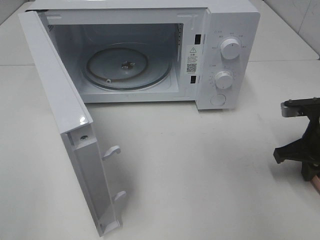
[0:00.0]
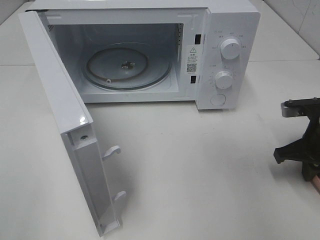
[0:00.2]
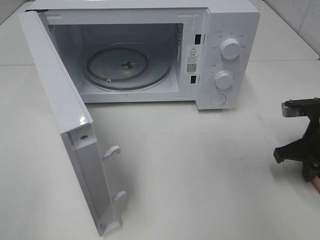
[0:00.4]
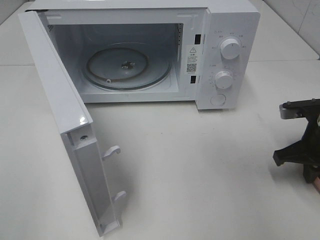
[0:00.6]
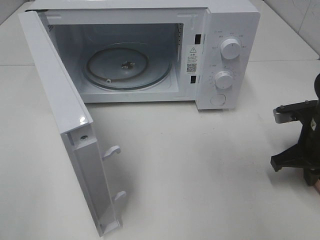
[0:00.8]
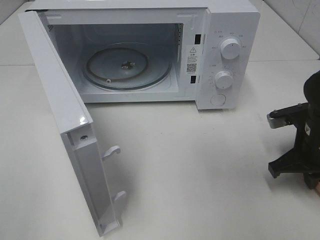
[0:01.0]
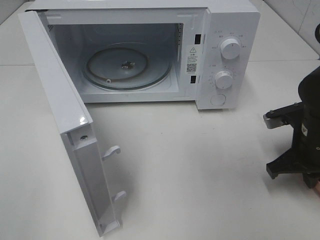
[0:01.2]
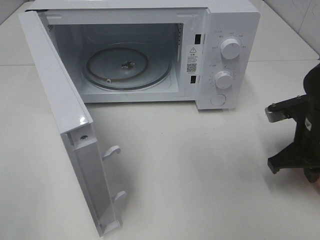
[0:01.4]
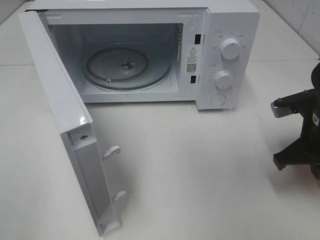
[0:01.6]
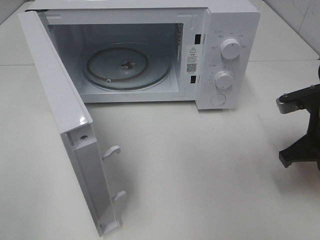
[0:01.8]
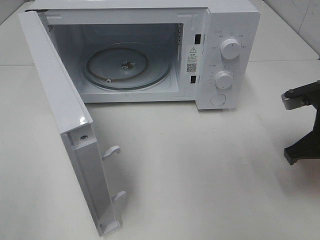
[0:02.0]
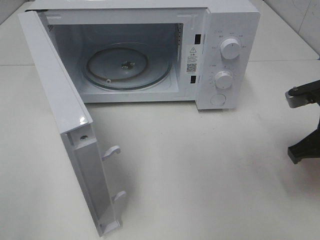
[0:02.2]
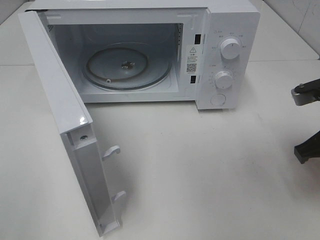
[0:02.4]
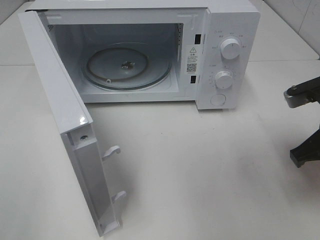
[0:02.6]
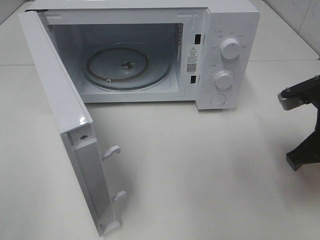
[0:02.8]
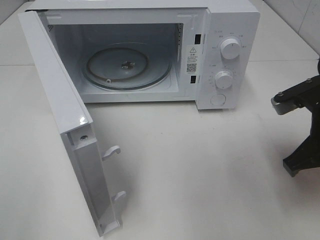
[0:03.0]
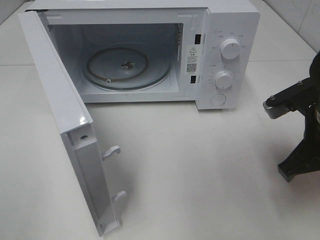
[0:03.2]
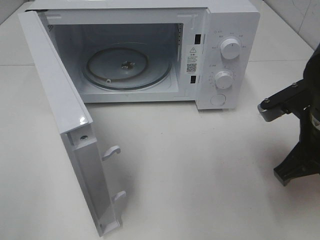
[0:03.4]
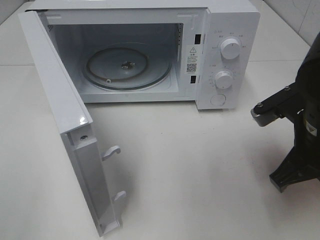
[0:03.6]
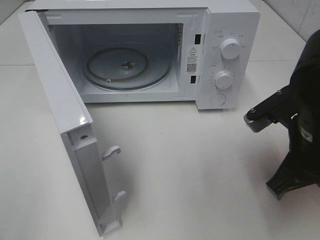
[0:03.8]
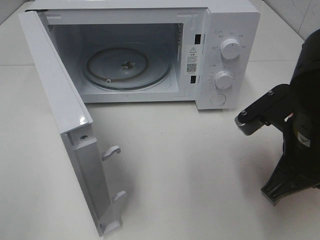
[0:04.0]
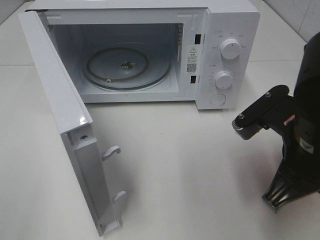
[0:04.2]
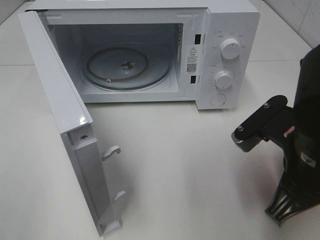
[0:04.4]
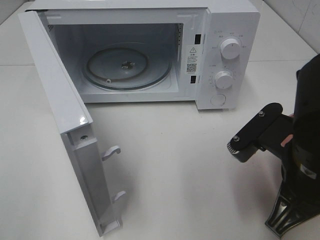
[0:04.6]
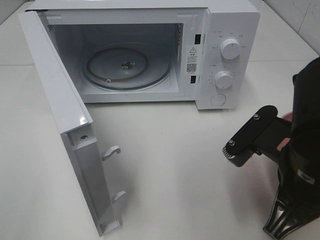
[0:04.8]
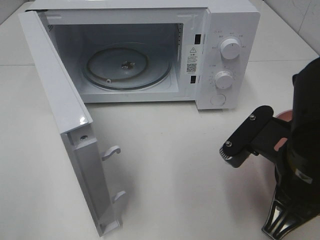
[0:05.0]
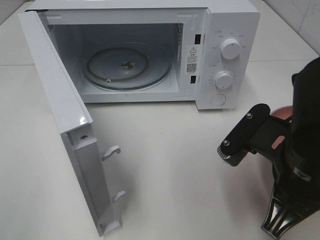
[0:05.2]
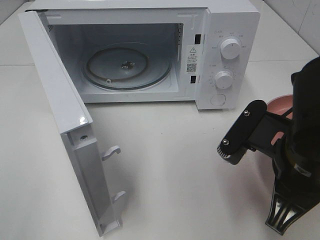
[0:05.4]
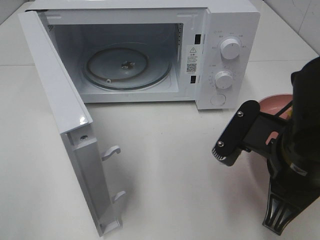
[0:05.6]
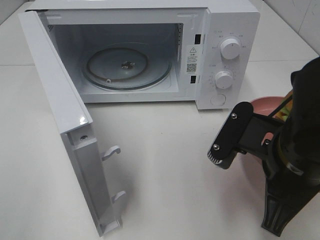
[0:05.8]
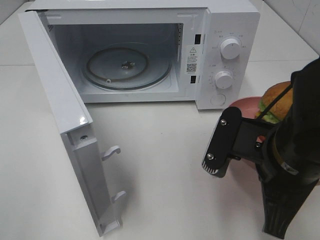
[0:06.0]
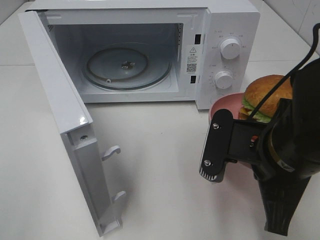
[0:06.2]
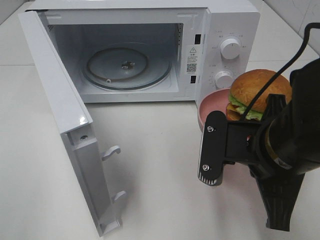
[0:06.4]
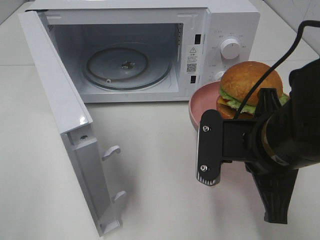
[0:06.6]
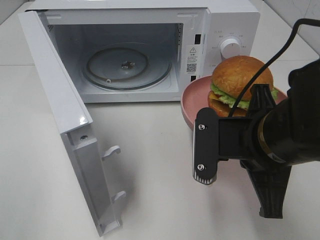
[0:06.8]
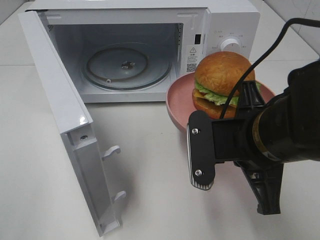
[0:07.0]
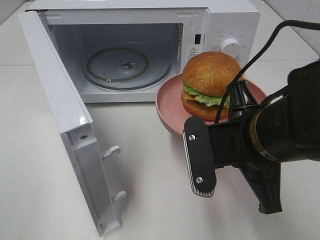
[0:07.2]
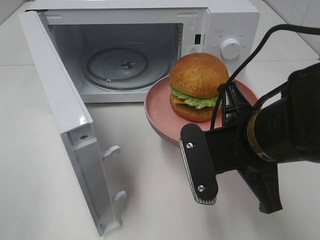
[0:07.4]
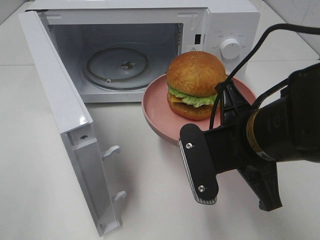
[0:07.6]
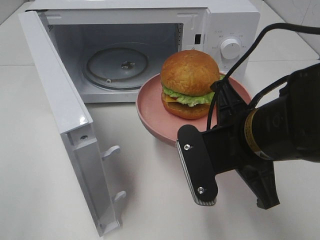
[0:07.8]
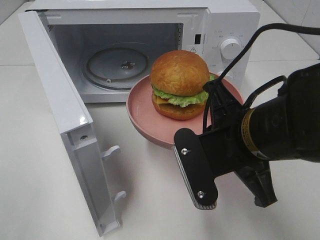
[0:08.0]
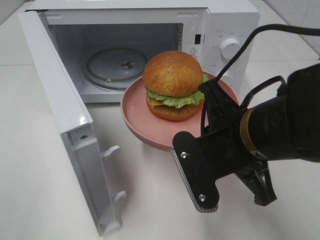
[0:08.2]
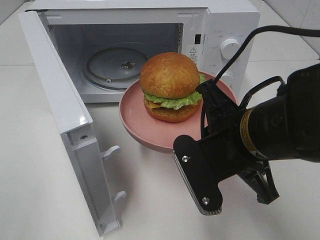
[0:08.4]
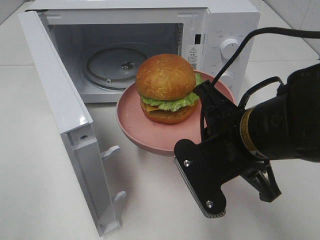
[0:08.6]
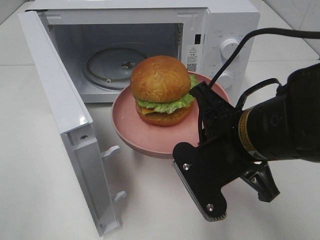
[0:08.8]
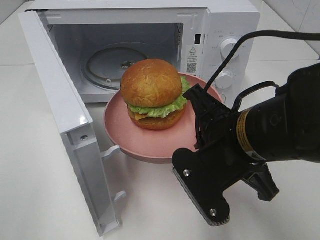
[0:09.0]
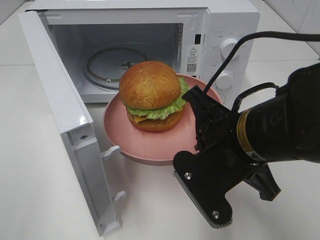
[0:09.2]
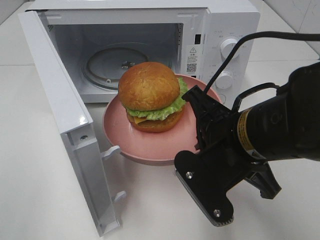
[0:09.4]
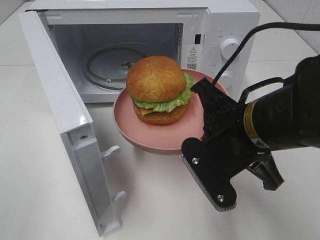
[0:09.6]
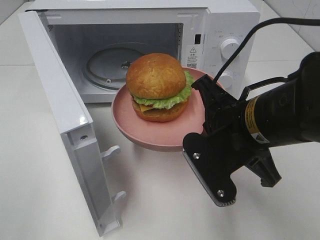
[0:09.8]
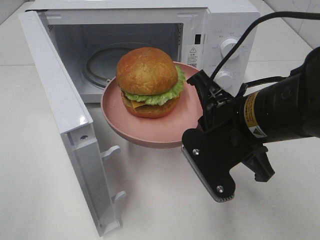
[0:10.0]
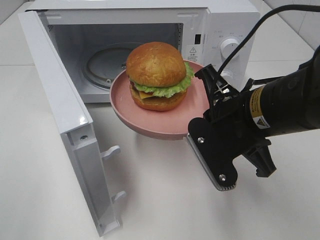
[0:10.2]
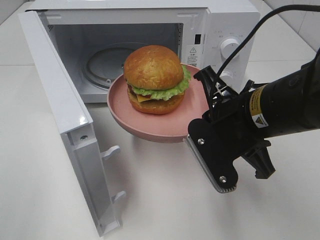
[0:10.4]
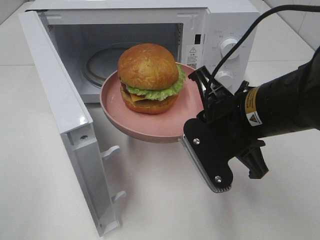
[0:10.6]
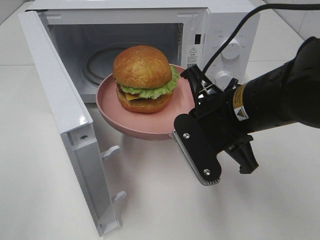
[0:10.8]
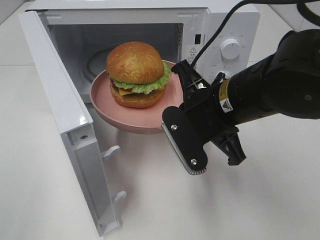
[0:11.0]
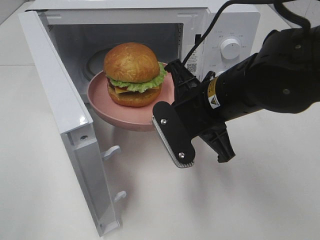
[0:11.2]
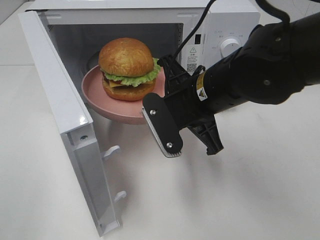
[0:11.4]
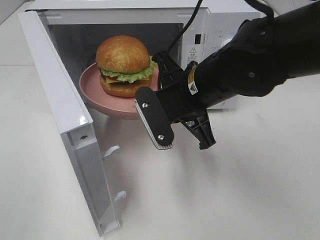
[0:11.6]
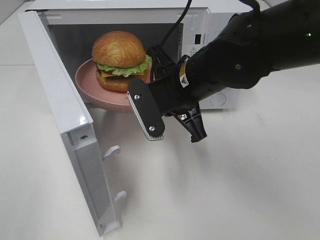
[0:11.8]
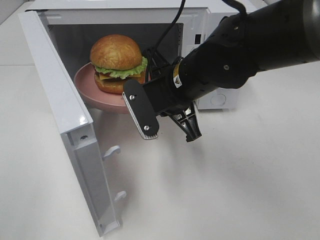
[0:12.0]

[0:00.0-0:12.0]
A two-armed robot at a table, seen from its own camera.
Task of the whole recording: Heat the burger.
0:00.0 to 0:01.6: The right gripper moves approximately 5 cm.
0:01.6 to 0:03.0: The right gripper shifts by about 5 cm.
0:03.0 to 0:04.4: The right gripper heads to the left and backward, covering approximately 10 cm.
0:10.4 to 0:12.0: The right gripper is displaced forward and to the left by about 10 cm.

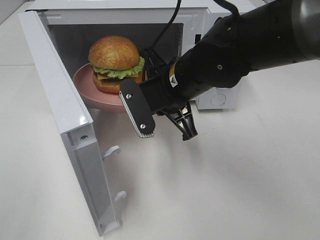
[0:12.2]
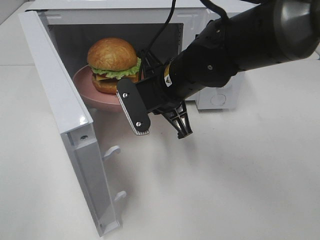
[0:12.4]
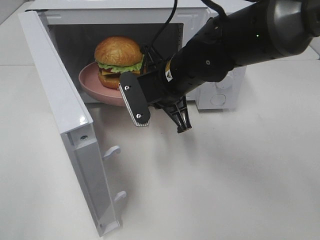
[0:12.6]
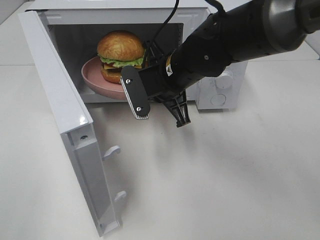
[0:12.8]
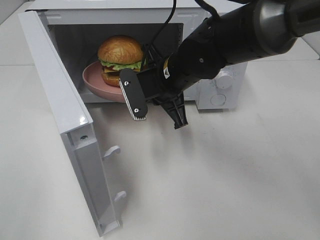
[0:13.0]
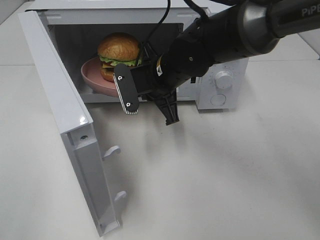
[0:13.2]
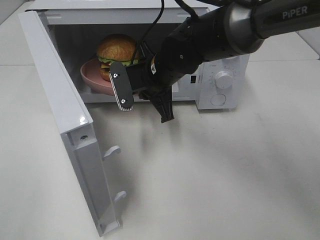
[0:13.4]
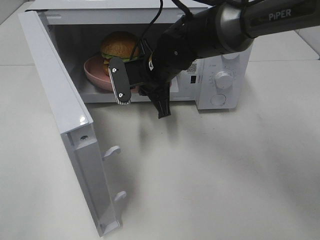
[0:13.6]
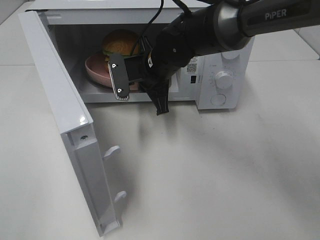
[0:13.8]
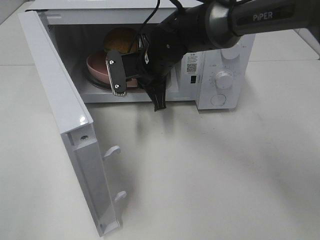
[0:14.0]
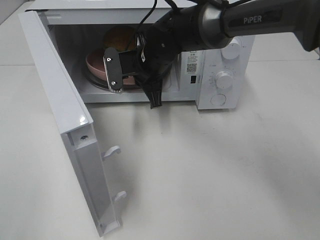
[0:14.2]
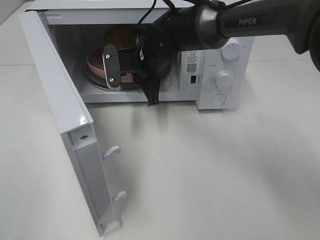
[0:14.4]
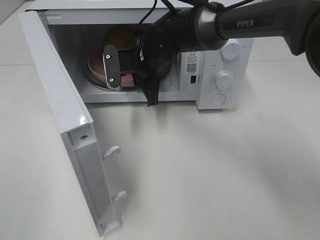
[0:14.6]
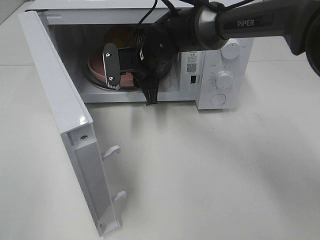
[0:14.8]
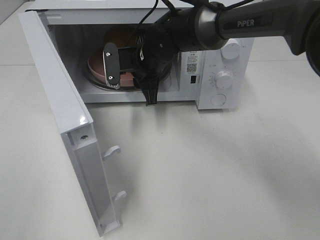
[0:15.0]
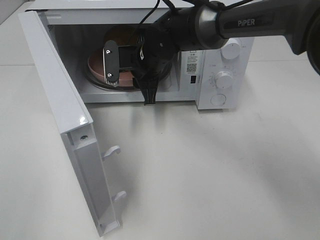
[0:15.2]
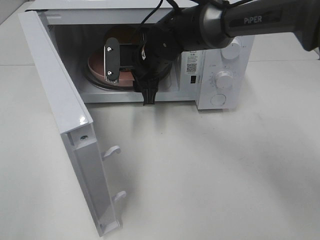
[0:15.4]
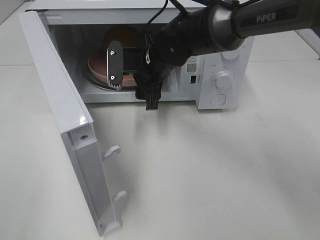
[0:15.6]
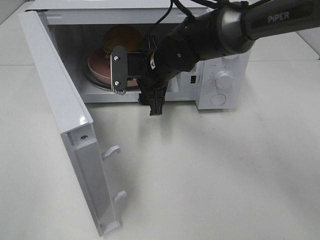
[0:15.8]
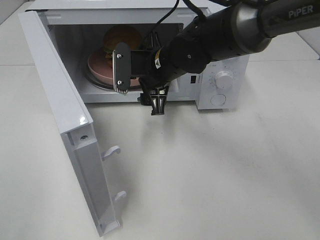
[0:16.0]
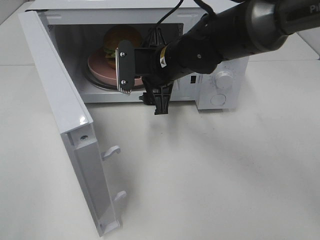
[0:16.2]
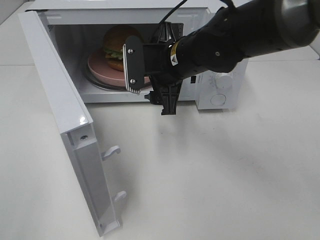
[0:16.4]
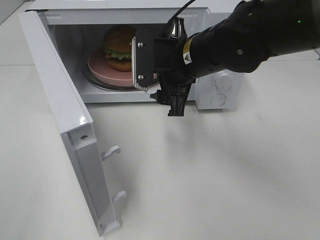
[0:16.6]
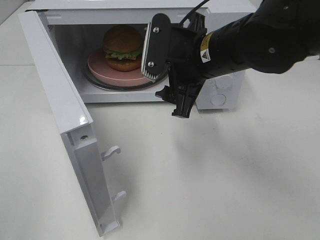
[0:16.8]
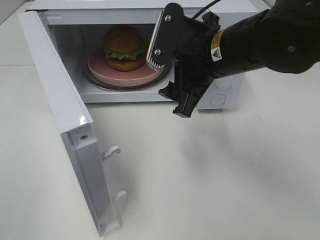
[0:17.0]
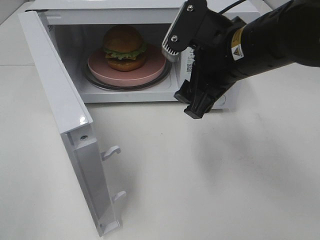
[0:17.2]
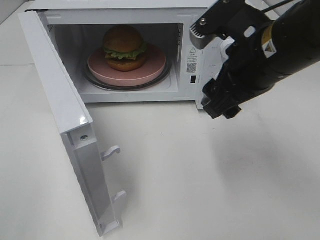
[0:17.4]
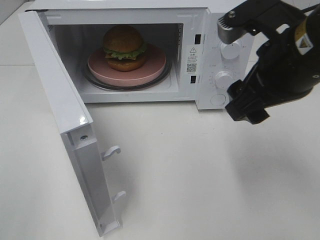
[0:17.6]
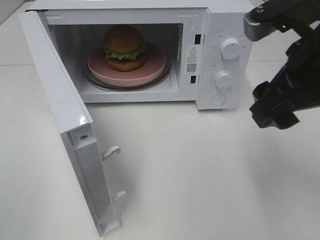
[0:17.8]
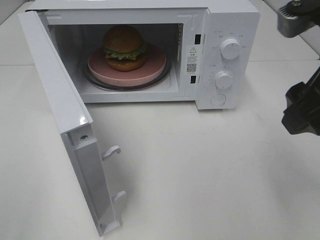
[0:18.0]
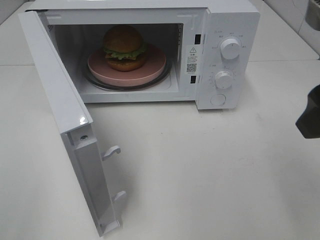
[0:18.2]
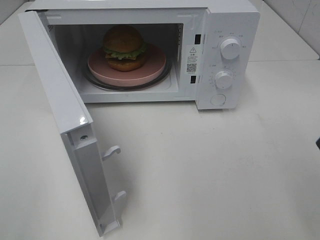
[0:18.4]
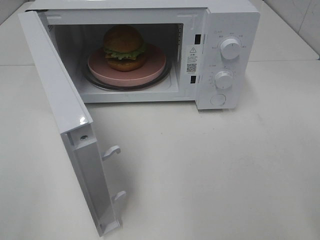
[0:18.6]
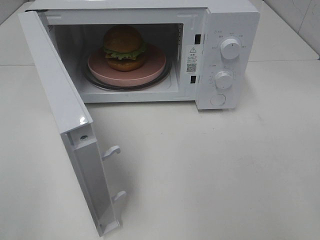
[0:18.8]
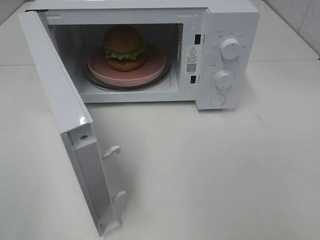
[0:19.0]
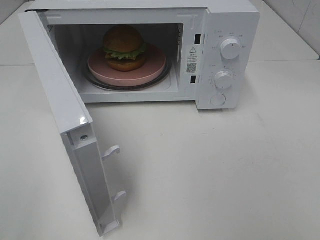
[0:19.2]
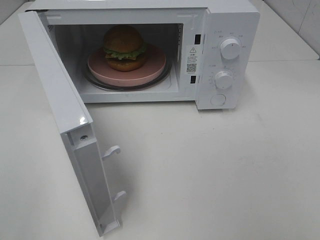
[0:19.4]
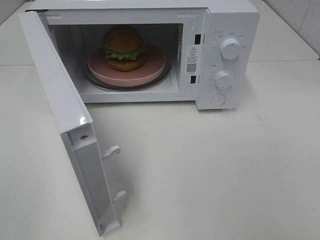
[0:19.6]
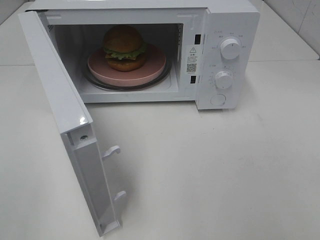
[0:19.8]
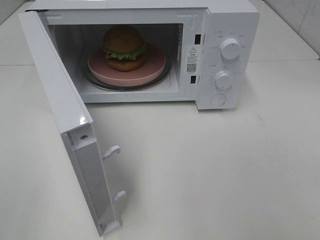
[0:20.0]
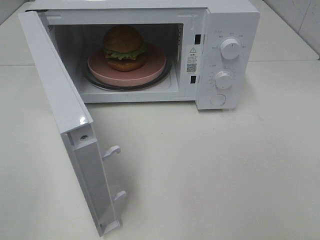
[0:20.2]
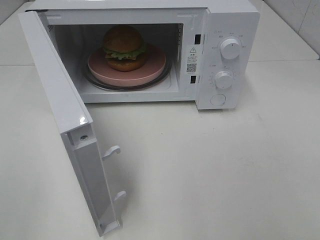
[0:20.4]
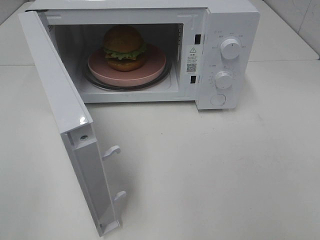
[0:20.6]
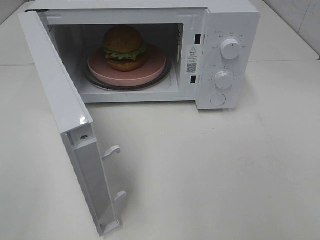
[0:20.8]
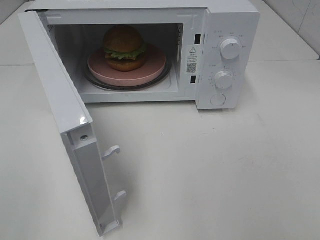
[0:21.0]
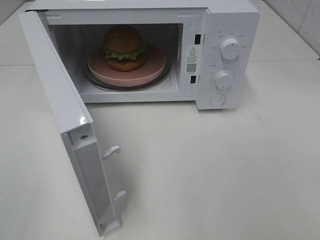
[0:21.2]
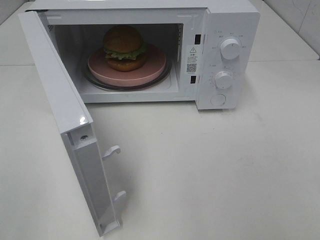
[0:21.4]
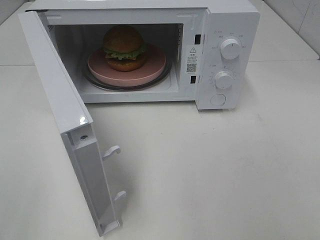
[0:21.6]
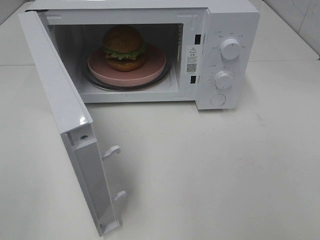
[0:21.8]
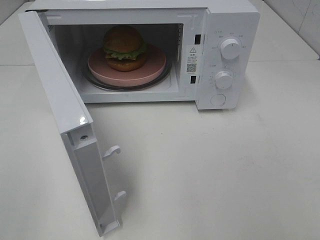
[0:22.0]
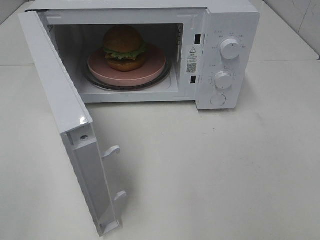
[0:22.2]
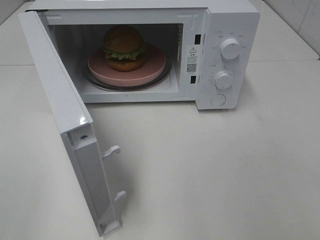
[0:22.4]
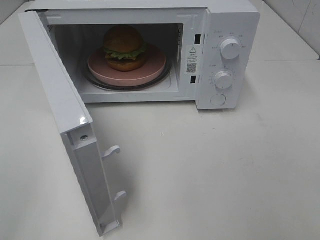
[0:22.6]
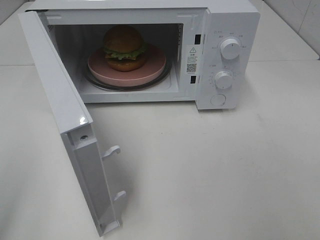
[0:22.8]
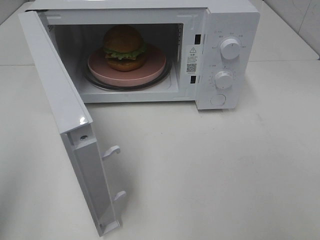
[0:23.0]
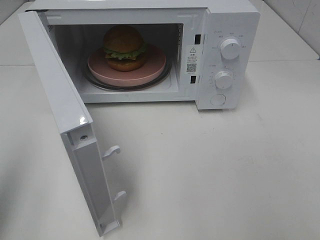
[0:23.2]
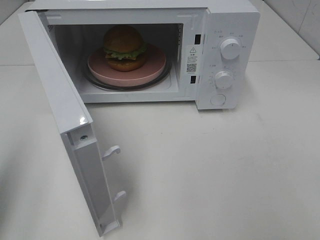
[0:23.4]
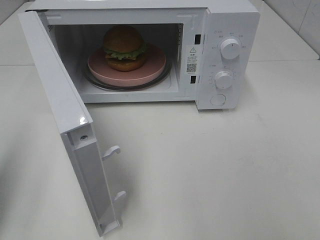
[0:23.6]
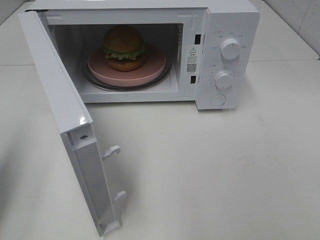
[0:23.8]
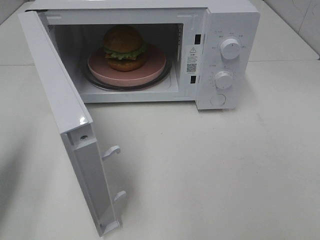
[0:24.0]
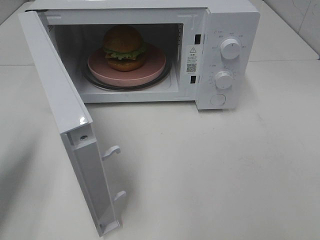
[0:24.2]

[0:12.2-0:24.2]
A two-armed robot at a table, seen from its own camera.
Task of the whole recording: Heat the burger.
Step, 0:12.2 to 0:14.6: Right hand: place the plate in the microwave.
0:12.2 to 0:13.8: The right gripper is displaced forward by roughly 10 cm.
0:13.8 to 0:15.2: The grippers move only a little.
0:15.2 to 0:16.6: The right gripper goes some 15 cm backward, to the right and upward.
0:16.6 to 0:18.2: The right gripper is displaced backward, to the right and upward by about 25 cm.
0:18.2 to 0:19.8: The right gripper is displaced backward and to the right by approximately 15 cm.
0:19.8 to 0:21.2: Both grippers stay put.
0:22.6 to 0:24.2: The left gripper goes approximately 20 cm forward and downward, and closes up.
